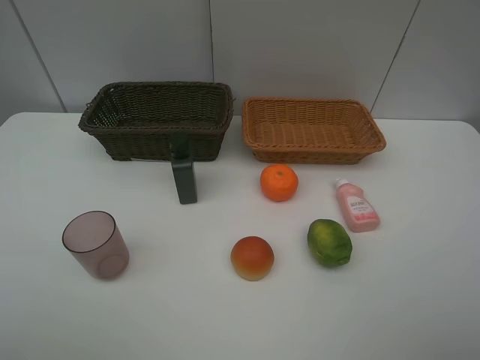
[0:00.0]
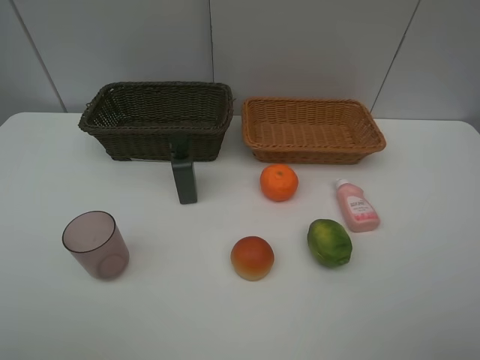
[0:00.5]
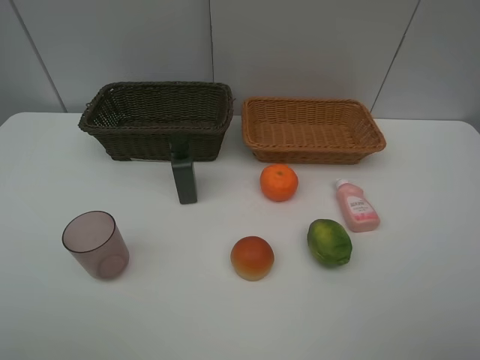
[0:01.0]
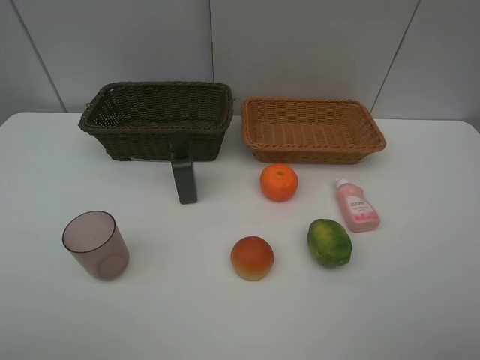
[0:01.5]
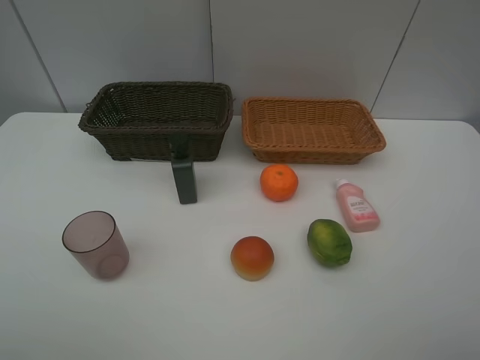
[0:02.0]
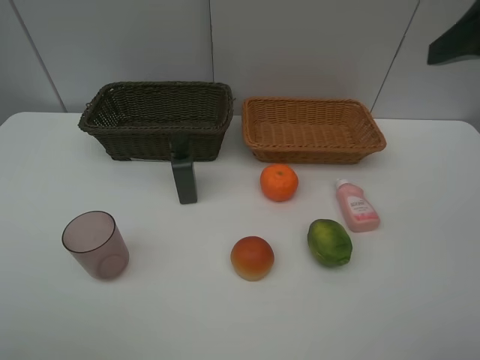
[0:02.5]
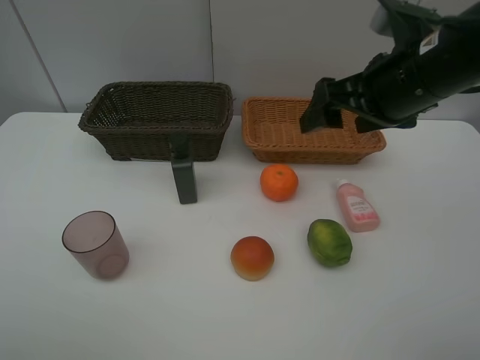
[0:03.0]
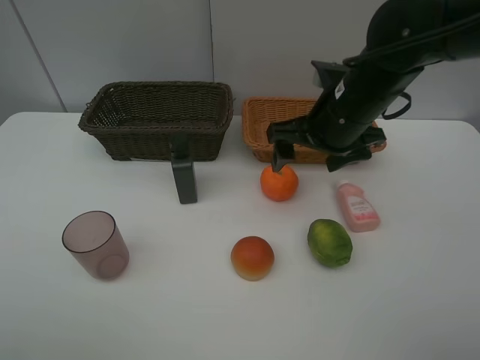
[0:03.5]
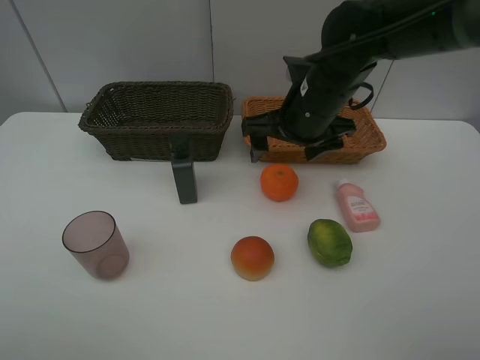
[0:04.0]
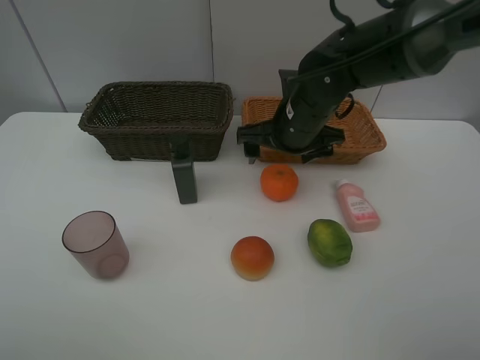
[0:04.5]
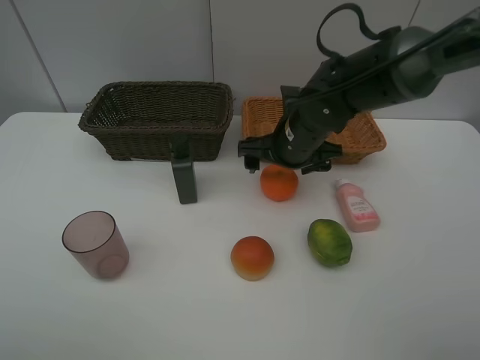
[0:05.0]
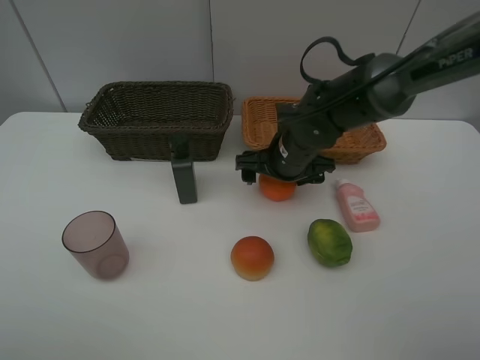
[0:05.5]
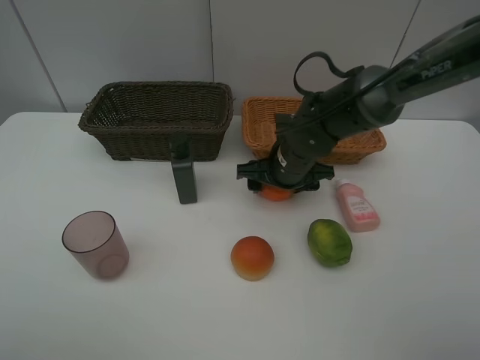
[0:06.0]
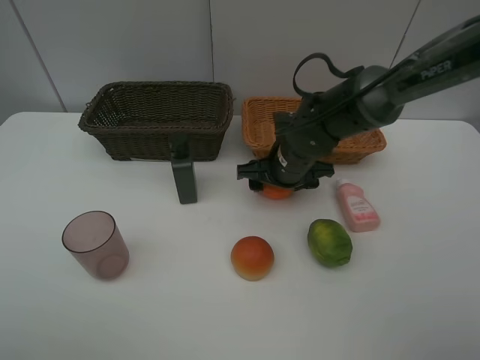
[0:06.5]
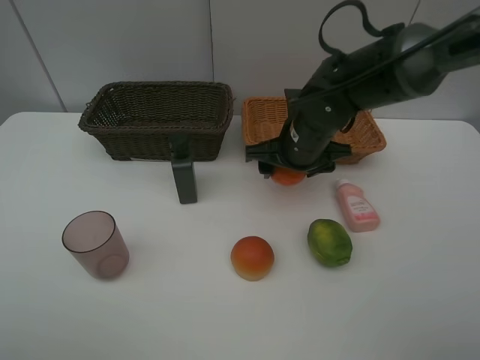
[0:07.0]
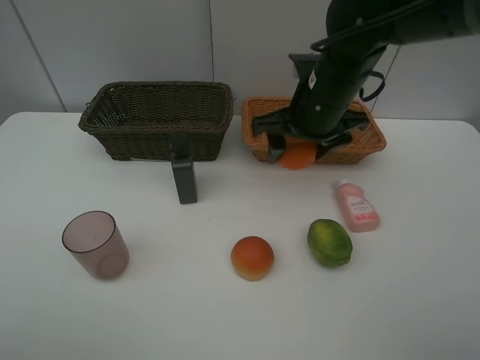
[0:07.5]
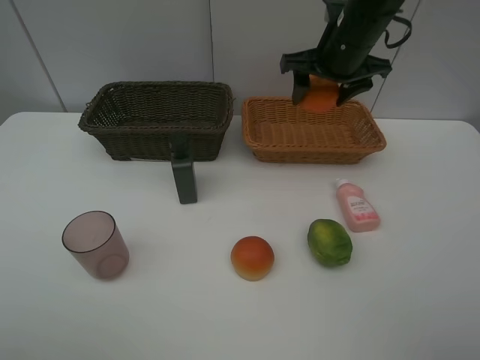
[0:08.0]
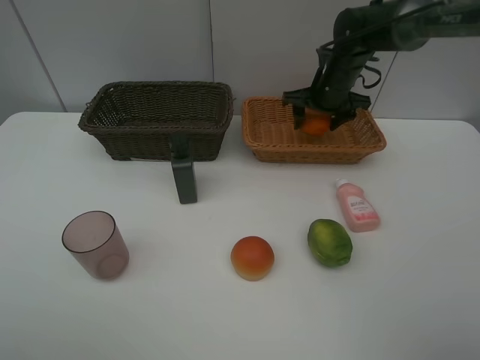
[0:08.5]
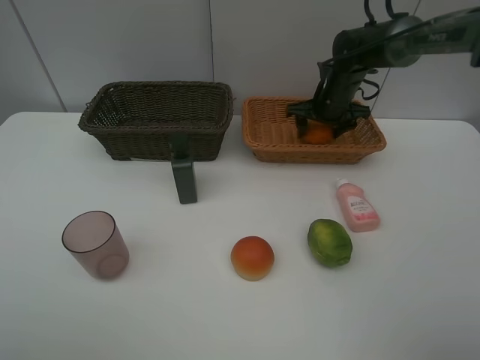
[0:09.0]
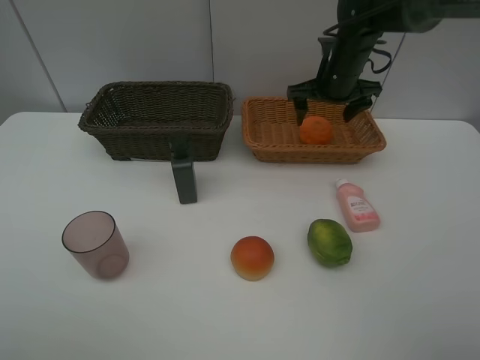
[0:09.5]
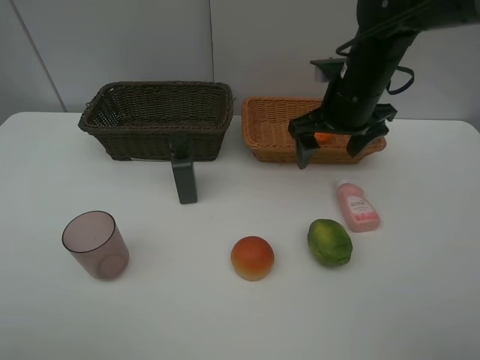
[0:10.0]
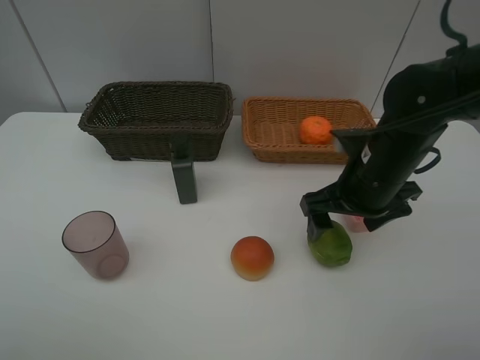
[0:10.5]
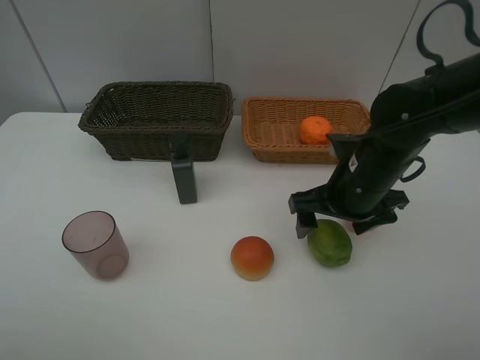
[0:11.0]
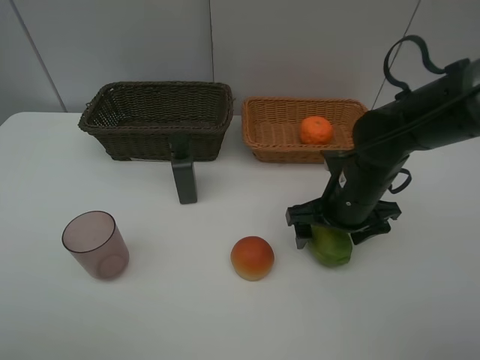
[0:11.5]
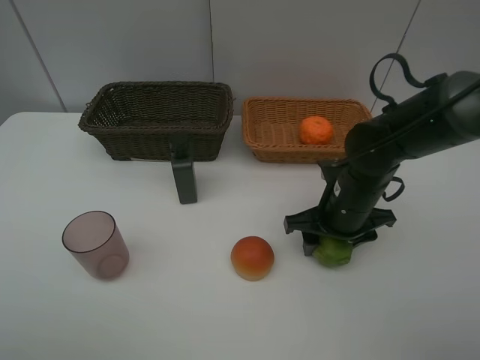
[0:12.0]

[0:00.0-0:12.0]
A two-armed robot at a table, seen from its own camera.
Task of the whole recording: place multiple objects separately in different baskets.
0:02.0 to 0:04.0: The right gripper shifts roughly 40 cm forward, to the left and downward.
0:04.0 to 0:06.0: The right gripper heads downward, covering about 10 cm, and closes.
0:06.0 to 0:08.0: The right gripper heads upward, forward and to the right, covering some 20 cm.
0:08.0 to 0:10.0: The right gripper shifts some 10 cm backward, and opens its fingers.
0:10.0 to 0:12.0: The right gripper goes about 15 cm downward and backward, and closes up.

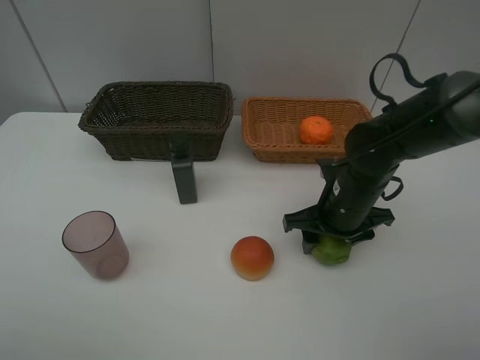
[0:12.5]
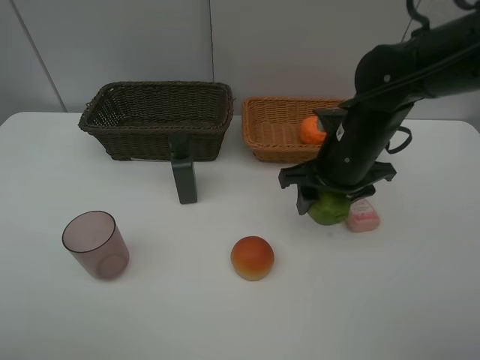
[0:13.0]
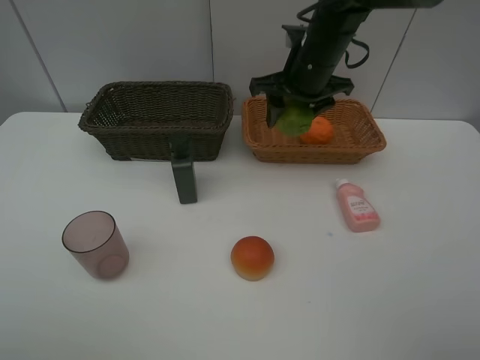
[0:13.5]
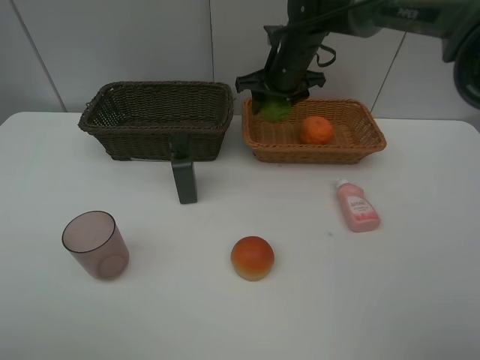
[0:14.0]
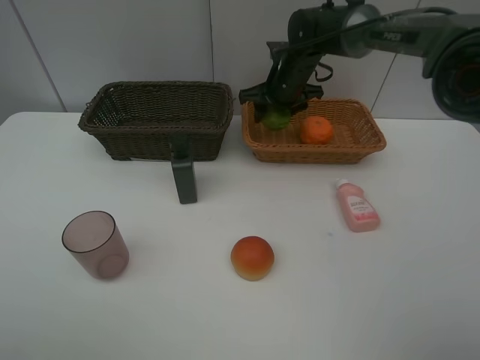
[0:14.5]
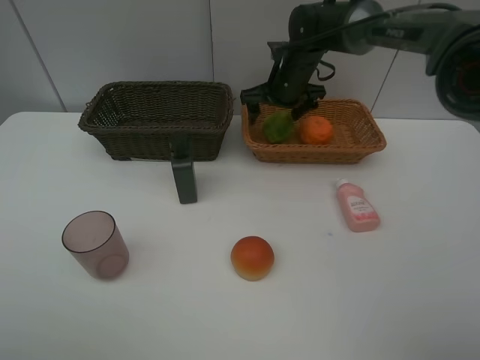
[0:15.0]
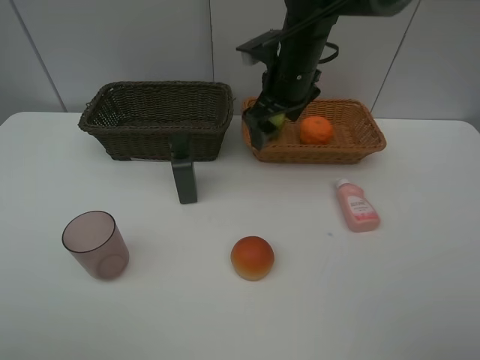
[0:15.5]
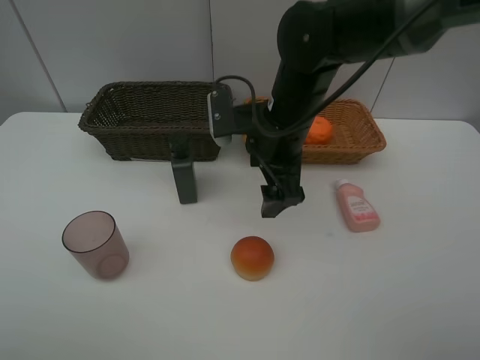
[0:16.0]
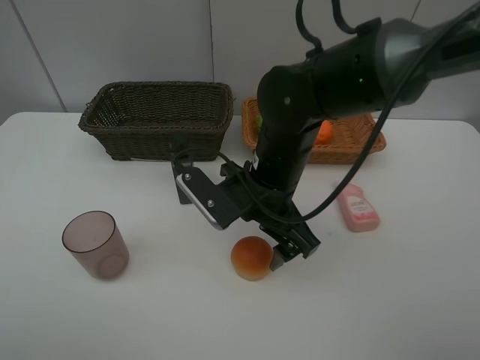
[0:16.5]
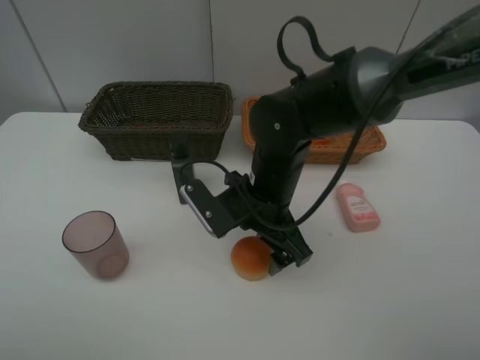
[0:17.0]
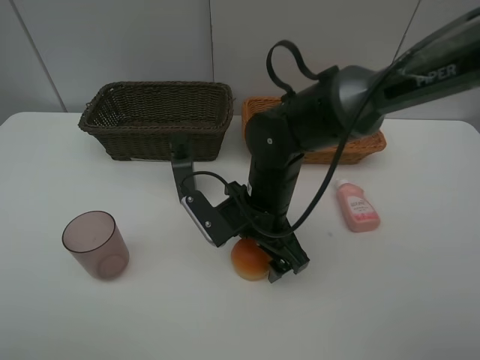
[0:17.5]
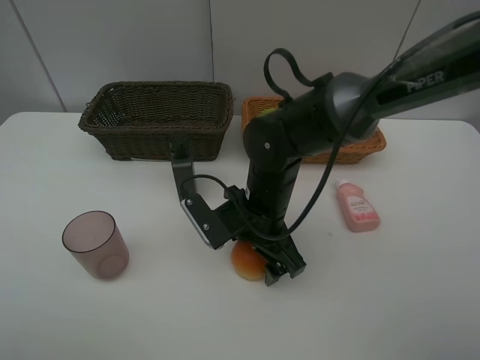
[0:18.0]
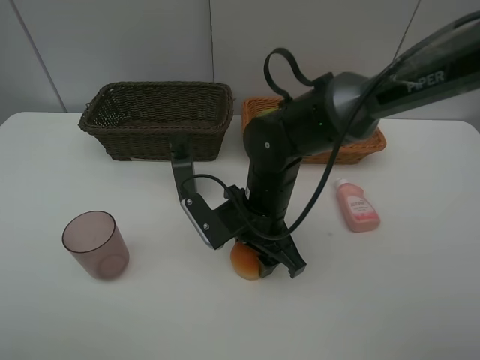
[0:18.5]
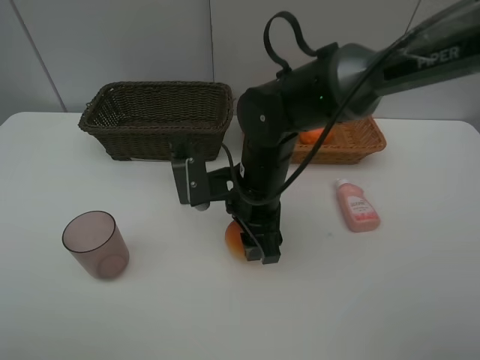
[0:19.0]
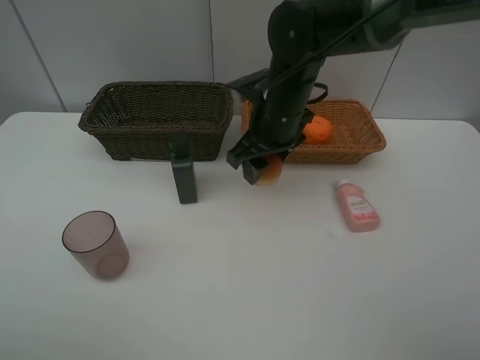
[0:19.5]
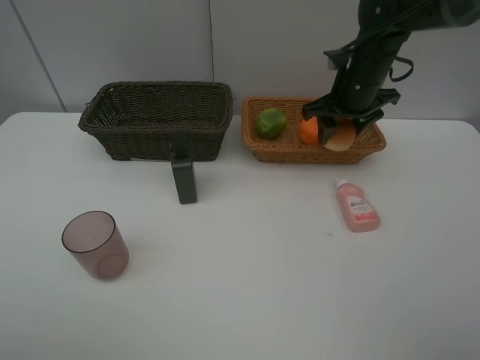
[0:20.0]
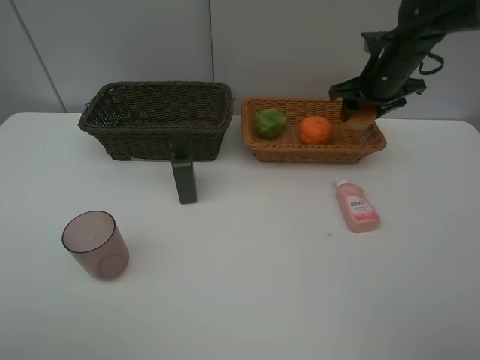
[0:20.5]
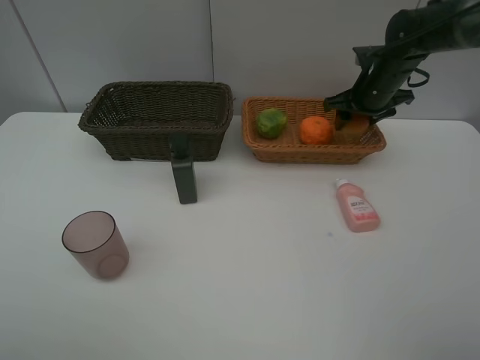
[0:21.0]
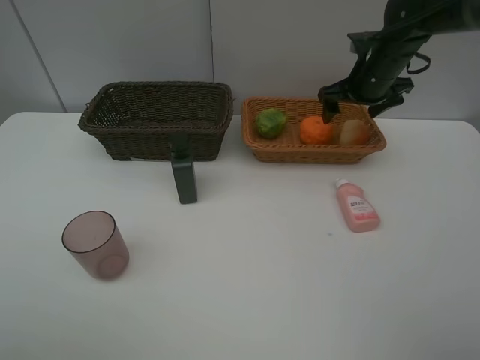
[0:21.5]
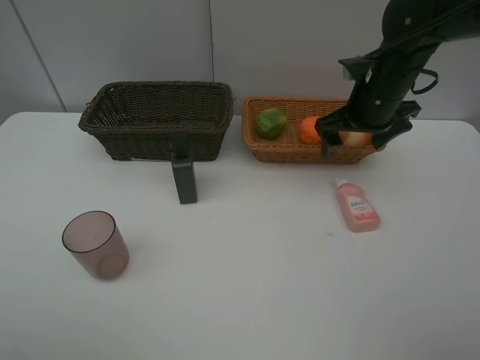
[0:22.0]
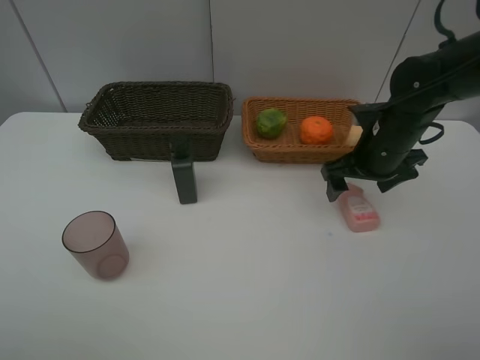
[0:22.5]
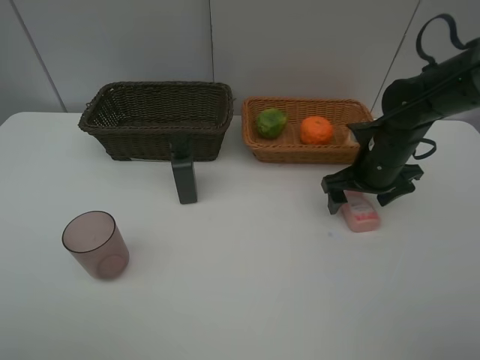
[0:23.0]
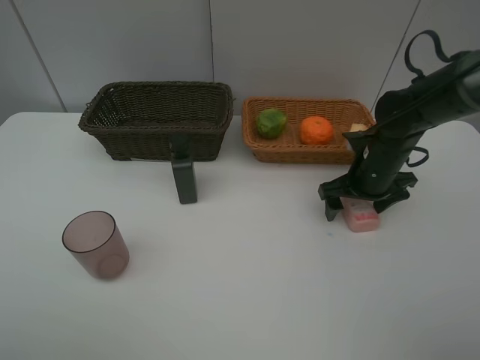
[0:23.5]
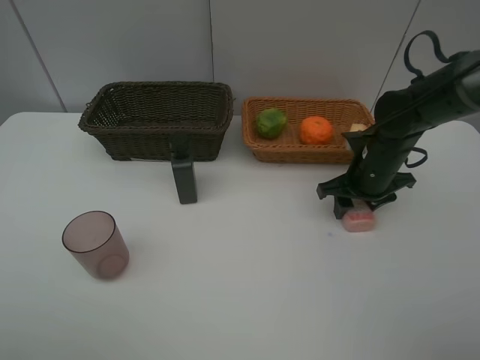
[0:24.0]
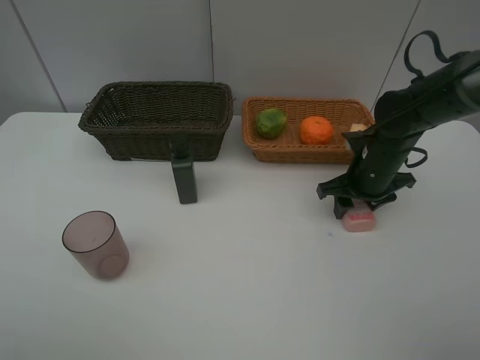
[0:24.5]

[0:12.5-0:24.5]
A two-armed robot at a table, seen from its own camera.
Task of the whole recording: place multiple objects separately in different baskets.
0:12.5 to 0:14.5: The right gripper is displaced forward by roughly 20 cm.
0:14.5 to 0:16.5: The right gripper moves backward, about 25 cm, and opens up.
0:16.5 to 0:18.5: The right gripper heads downward, covering roughly 5 cm, and closes up.
0:18.5 to 0:20.5: The right gripper travels to the right, forward and upward by about 30 cm.
0:20.5 to 0:22.5: The right gripper is displaced backward by approximately 10 cm, and opens up.
0:22.5 to 0:24.5: The right gripper heads downward, covering about 5 cm, and closes.

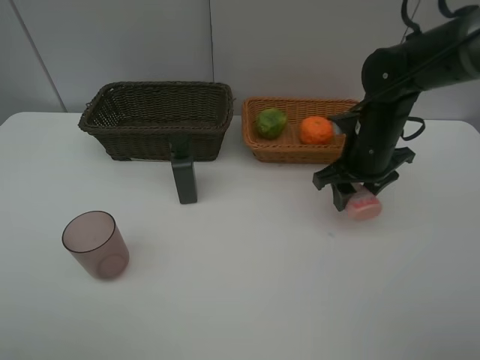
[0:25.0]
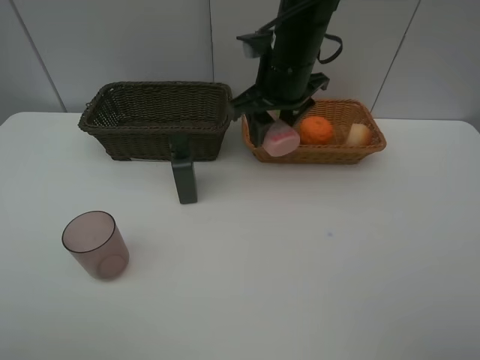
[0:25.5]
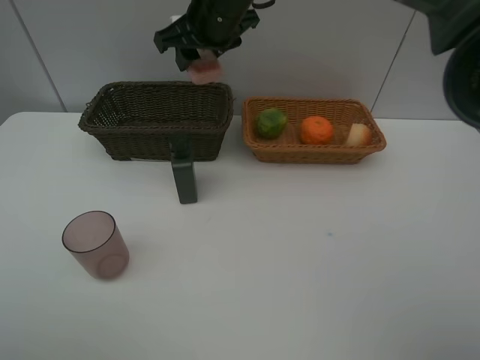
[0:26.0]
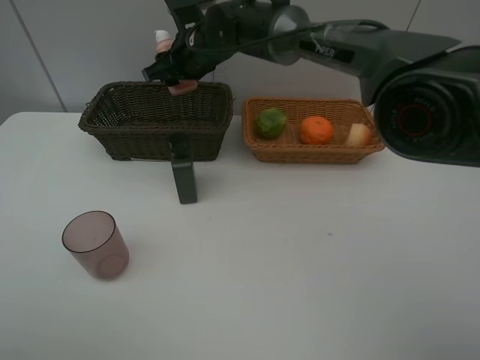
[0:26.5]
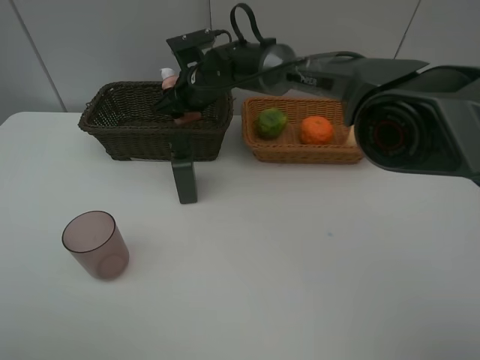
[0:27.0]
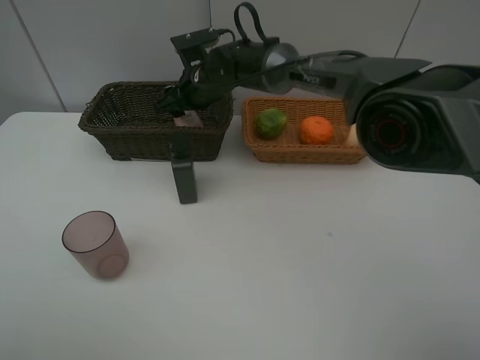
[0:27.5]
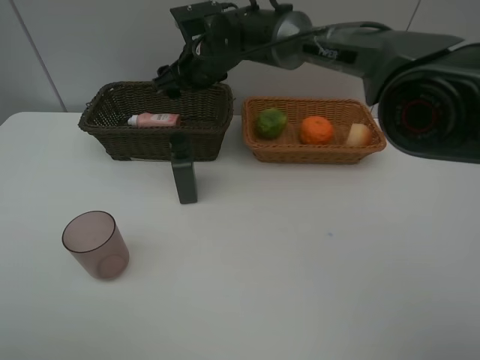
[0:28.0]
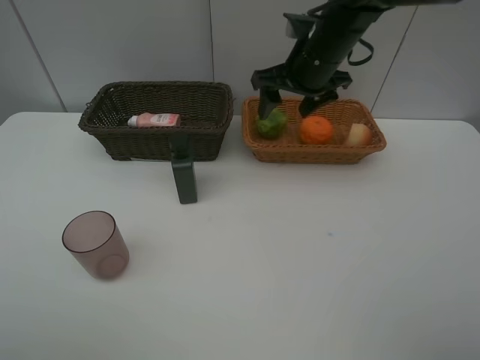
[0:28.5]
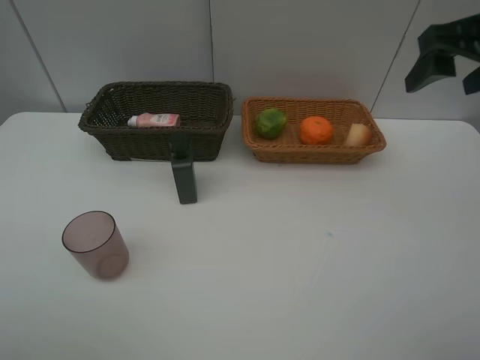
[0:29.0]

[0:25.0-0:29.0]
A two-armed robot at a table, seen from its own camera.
Task of the whole recording: place multiple objects separately in different baskets.
0:25.0 to 0:27.0: The right gripper shifts some 25 cm to the left and forward.
0:27.0 to 0:29.0: The right gripper shifts about 40 cm to the right, backward and upward, and opens its fingers.
